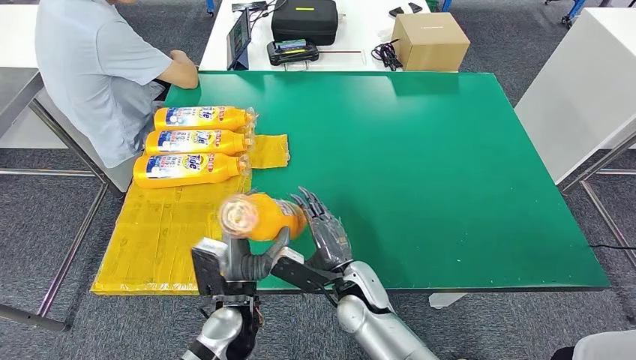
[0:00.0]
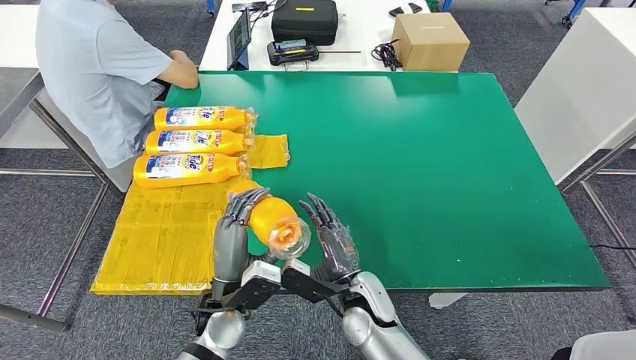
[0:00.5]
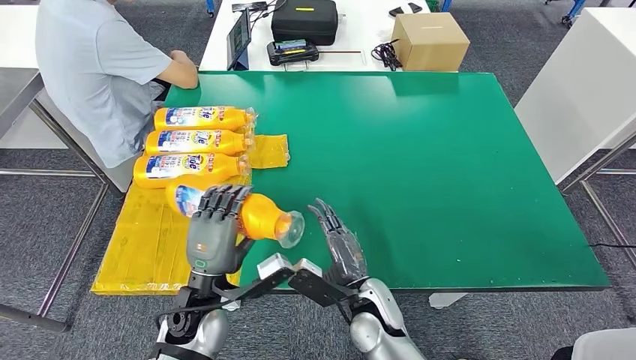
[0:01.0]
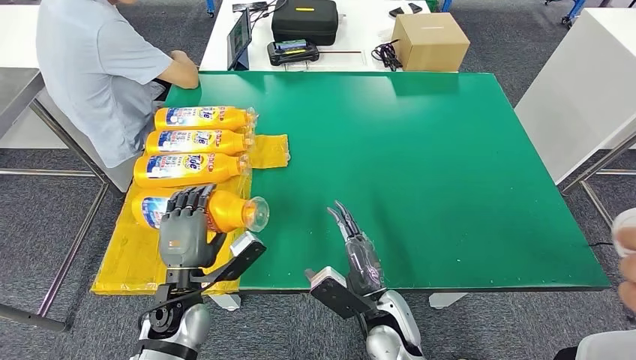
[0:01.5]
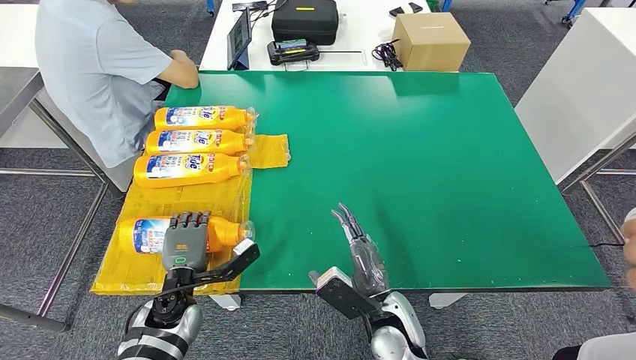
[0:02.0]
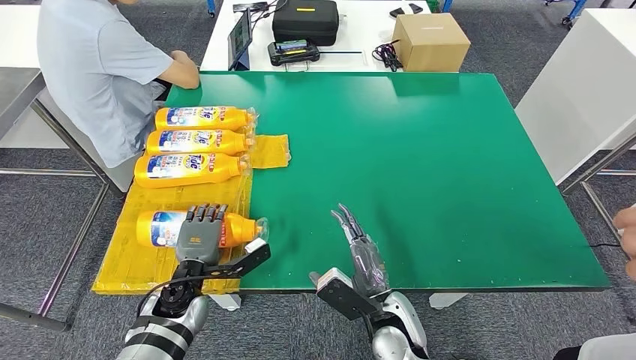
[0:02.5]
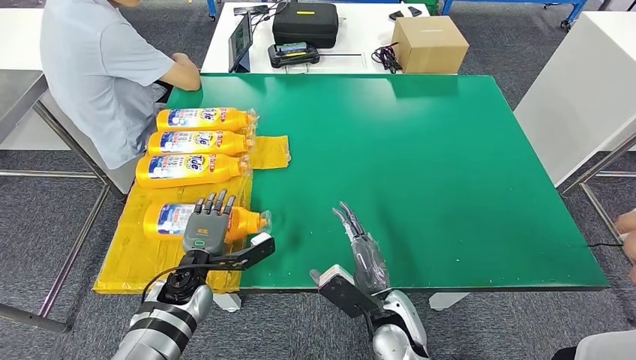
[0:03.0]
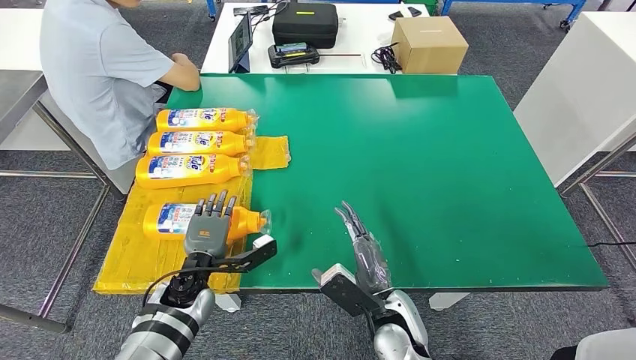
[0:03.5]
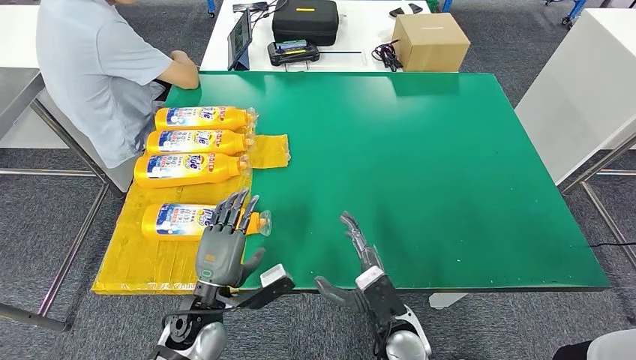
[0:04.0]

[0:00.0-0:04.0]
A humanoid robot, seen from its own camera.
Step, 0:00.0 to 0:04.0: Flip the bottle to face forward.
0:00.0 to 0:02.0: The right hand heads backward and to the right, covering about 5 cm, while the left hand heads to the left, covering roughly 10 cm.
0:02.0 to 0:04.0: The left hand travels to the right by approximately 5 cm.
